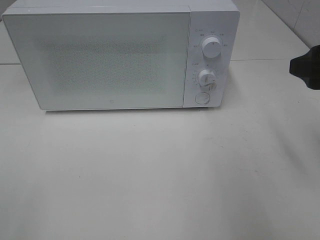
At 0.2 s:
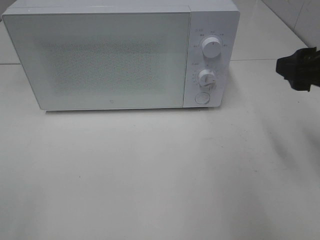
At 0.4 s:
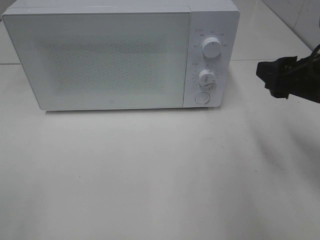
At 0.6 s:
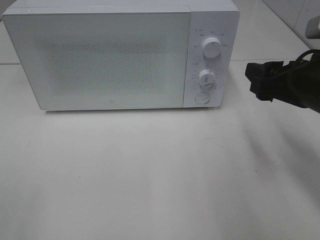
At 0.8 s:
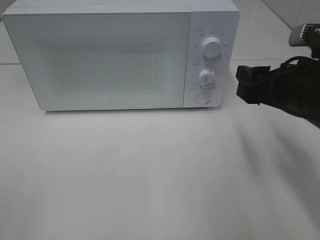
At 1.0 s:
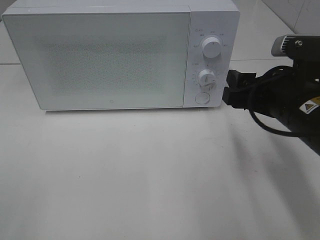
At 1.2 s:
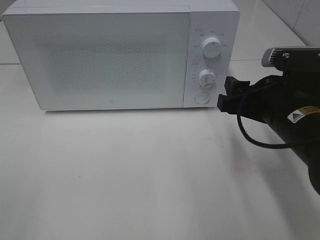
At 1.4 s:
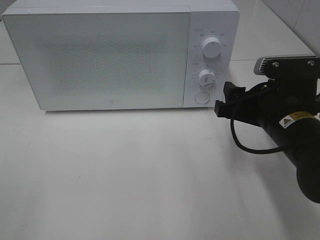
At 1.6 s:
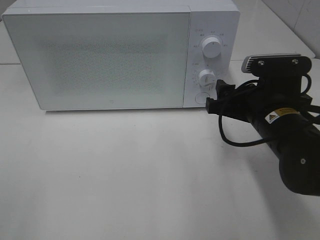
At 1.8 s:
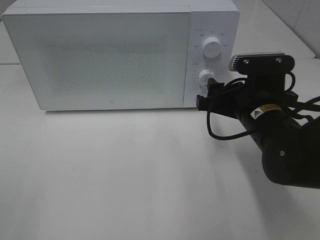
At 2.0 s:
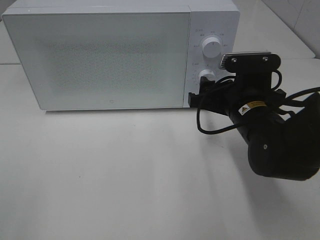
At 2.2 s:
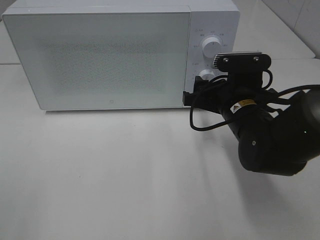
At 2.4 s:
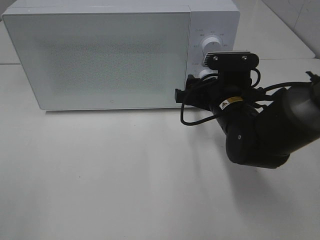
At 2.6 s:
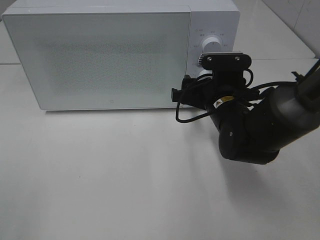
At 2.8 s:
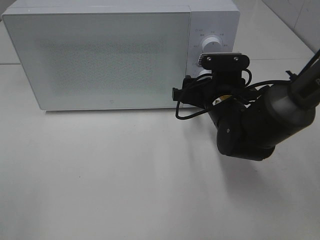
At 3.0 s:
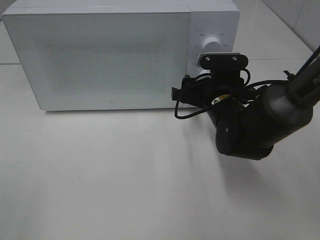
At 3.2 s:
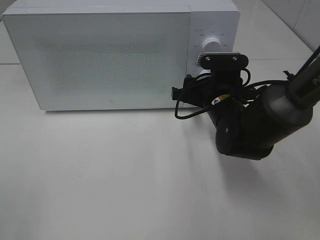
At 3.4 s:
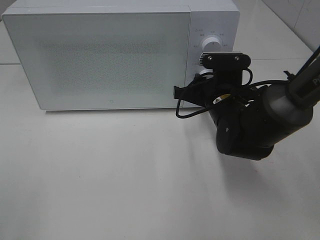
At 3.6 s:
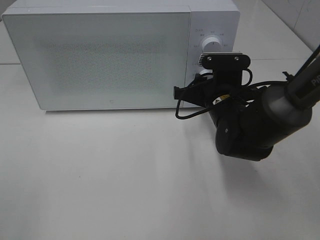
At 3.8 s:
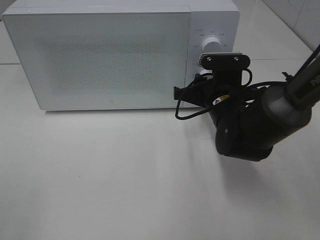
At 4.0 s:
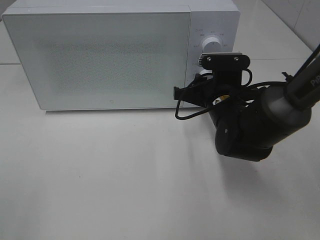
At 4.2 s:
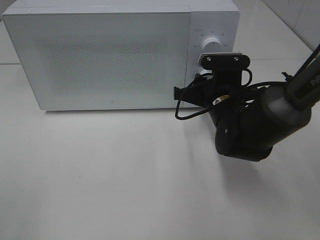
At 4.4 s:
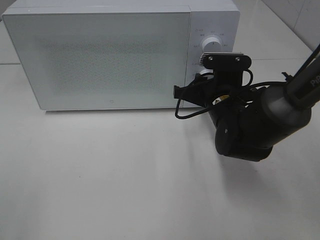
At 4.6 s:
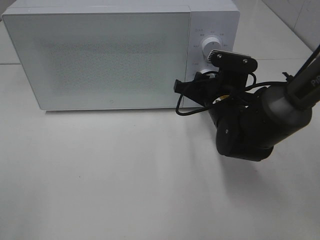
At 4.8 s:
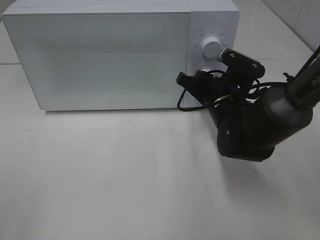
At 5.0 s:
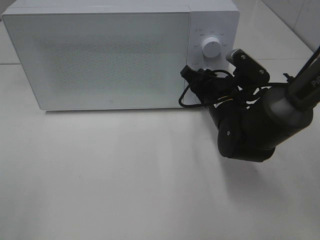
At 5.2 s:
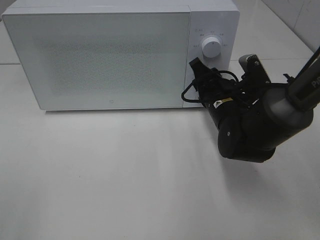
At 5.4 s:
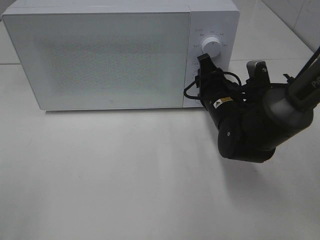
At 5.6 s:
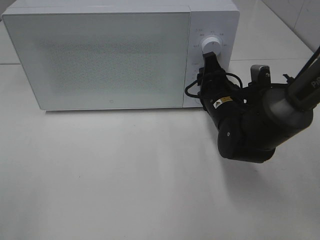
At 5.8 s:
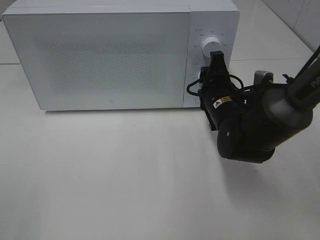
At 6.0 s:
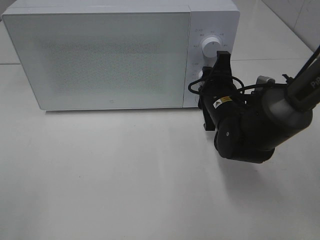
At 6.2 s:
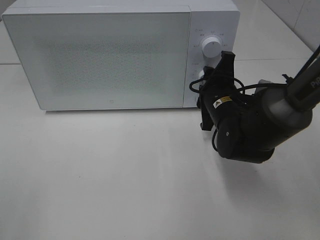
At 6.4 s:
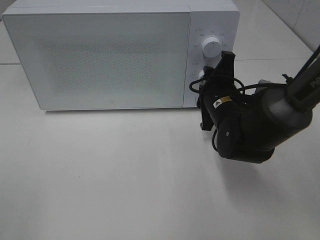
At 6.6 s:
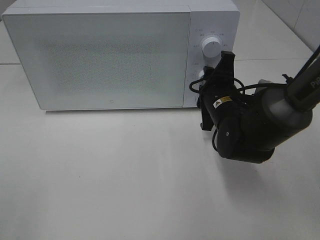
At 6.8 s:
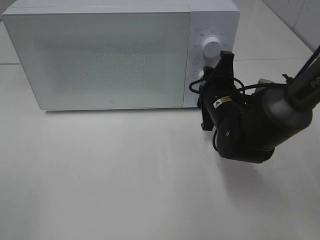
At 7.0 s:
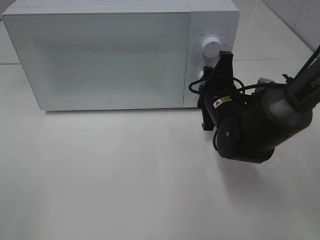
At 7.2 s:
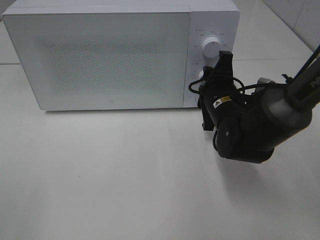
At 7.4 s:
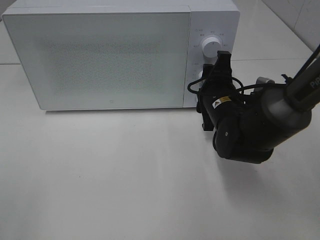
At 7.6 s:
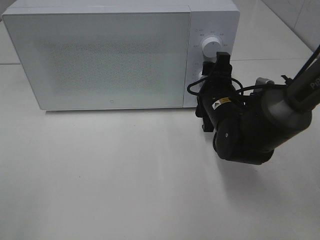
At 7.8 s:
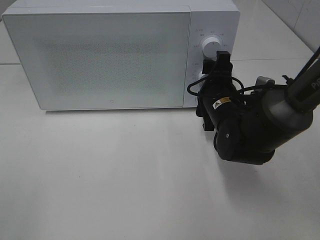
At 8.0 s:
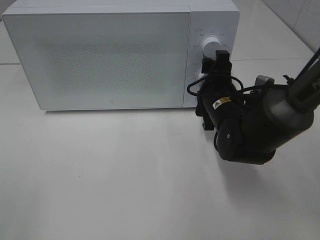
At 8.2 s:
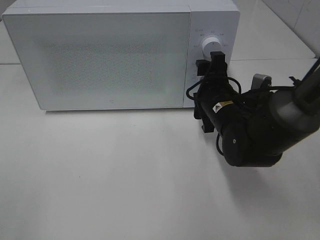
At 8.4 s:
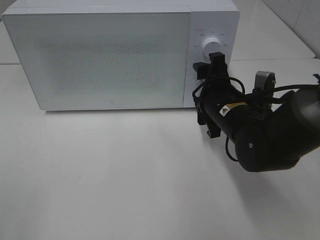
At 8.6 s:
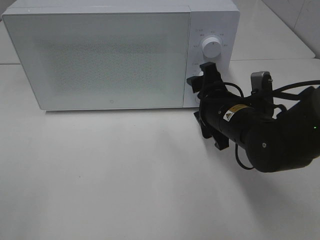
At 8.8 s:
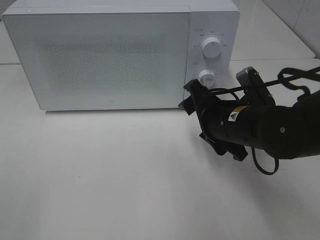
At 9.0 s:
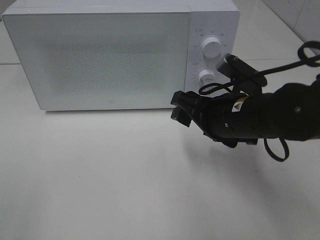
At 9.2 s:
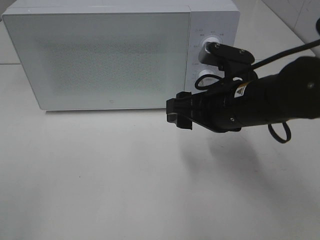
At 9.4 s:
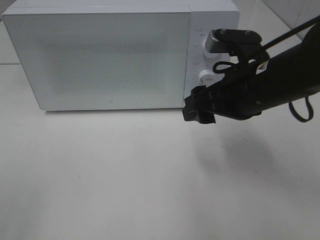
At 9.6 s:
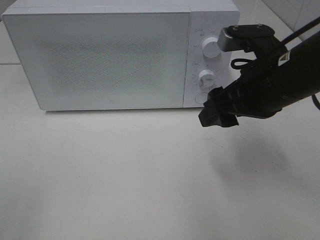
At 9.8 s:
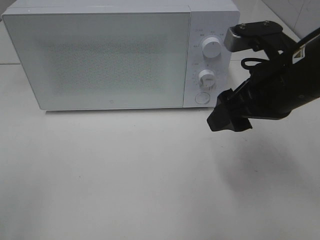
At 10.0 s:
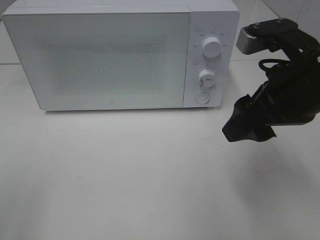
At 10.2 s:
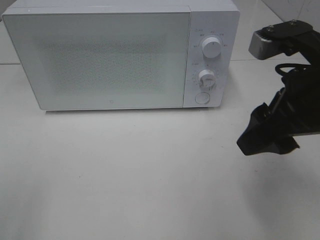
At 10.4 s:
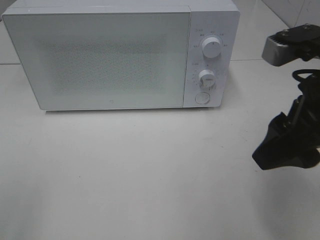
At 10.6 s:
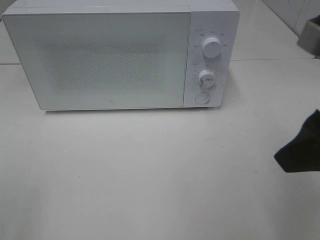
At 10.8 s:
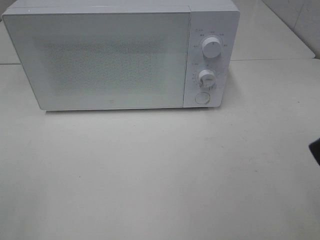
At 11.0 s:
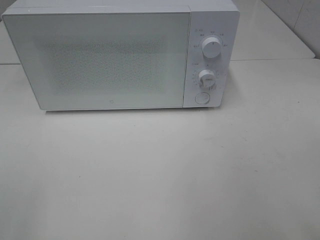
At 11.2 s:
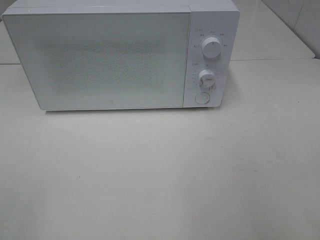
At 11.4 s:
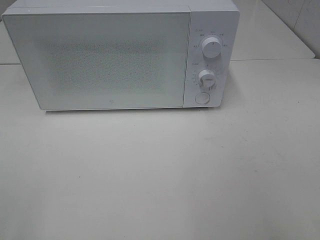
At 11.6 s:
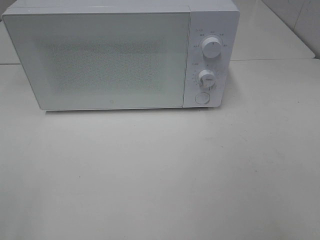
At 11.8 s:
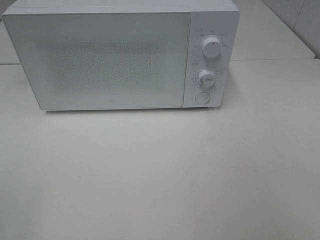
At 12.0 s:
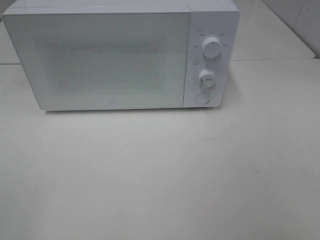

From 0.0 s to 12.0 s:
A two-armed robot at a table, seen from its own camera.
Task of the whole recording: Heat Sandwich.
Step, from 0.0 s to 8.2 s: Right hand: twist timer button.
From 0.0 s to 1.6 s: The right gripper is displaced downward and to the left by roughly 15 cm.
From 1.6 s to 3.0 s: The right gripper travels forward by about 10 cm.
From 3.0 s to 4.4 s: The right gripper closes.
From 6.0 s to 7.6 s: The grippers make only small movements.
From 7.6 s to 9.0 s: The right gripper travels backward and upward by some 10 cm.
From 9.0 s to 10.4 s: The right gripper is displaced upward, backward and to the right by about 15 cm.
From 10.4 s to 12.0 s: The right gripper shifts about 20 cm backward and to the right.

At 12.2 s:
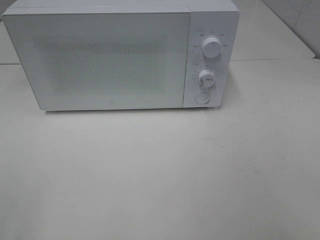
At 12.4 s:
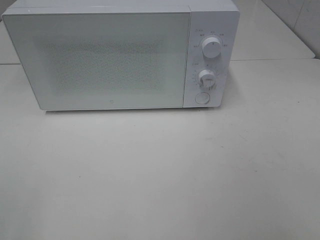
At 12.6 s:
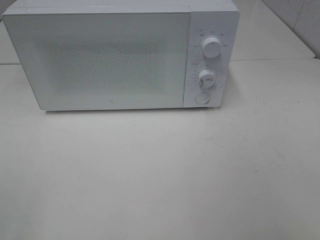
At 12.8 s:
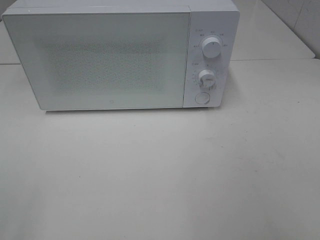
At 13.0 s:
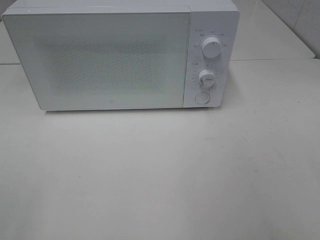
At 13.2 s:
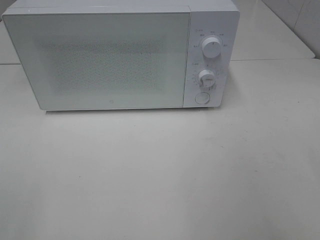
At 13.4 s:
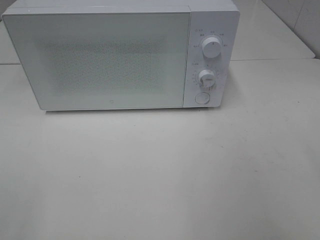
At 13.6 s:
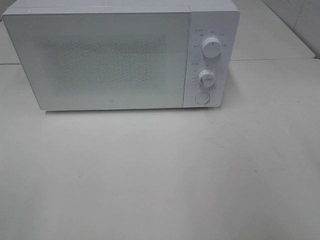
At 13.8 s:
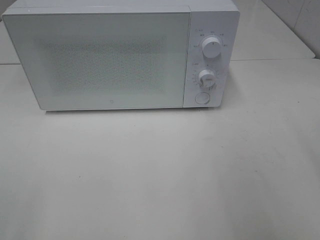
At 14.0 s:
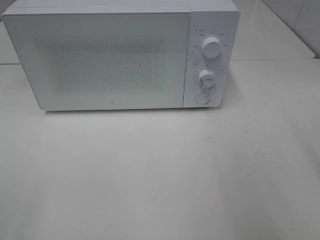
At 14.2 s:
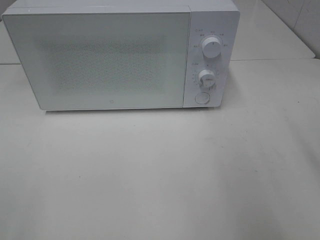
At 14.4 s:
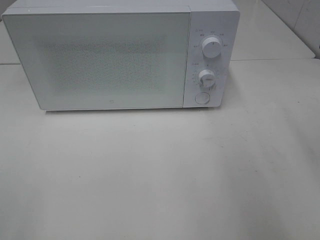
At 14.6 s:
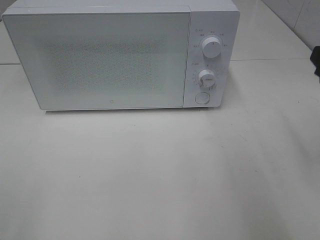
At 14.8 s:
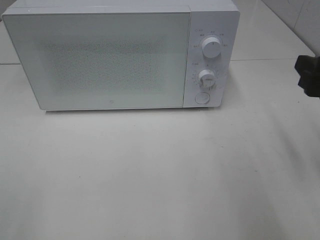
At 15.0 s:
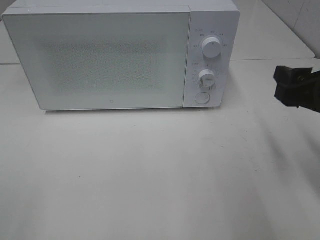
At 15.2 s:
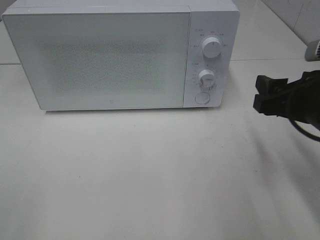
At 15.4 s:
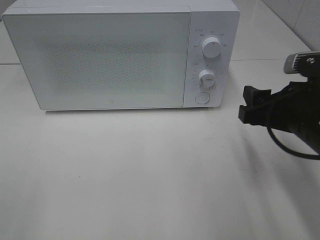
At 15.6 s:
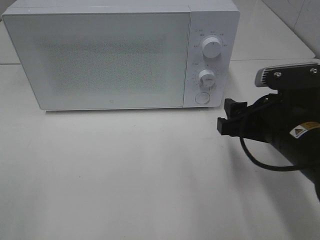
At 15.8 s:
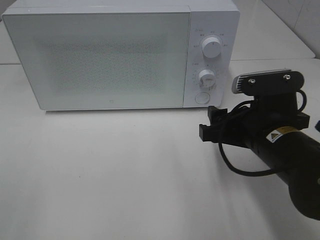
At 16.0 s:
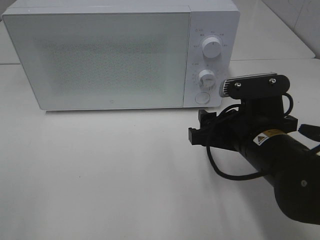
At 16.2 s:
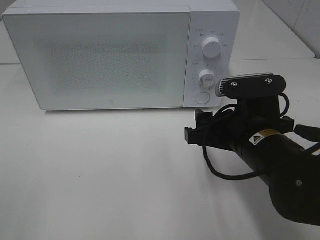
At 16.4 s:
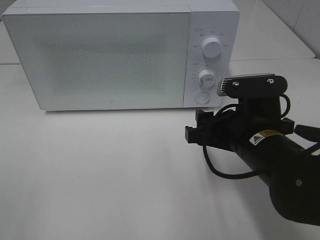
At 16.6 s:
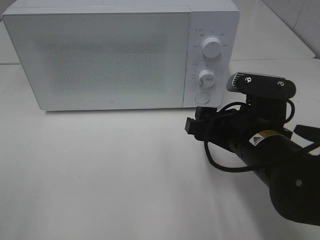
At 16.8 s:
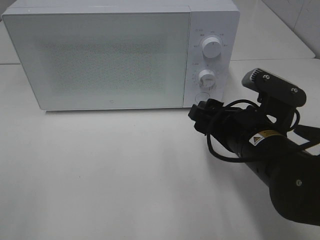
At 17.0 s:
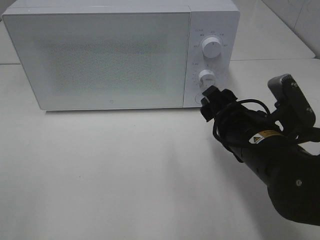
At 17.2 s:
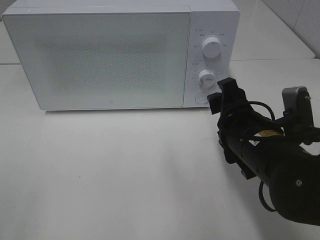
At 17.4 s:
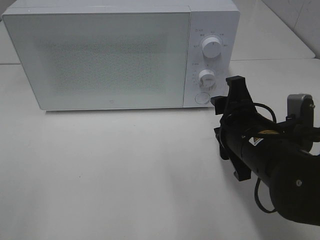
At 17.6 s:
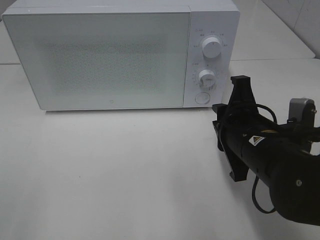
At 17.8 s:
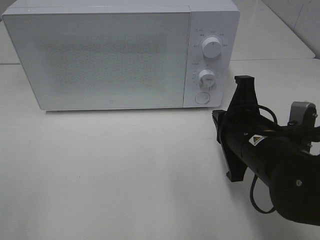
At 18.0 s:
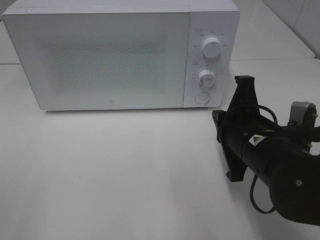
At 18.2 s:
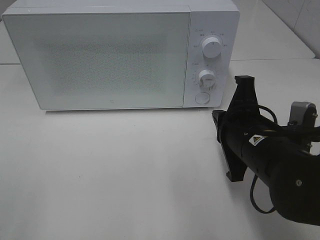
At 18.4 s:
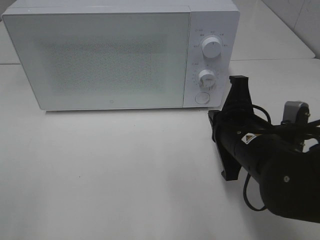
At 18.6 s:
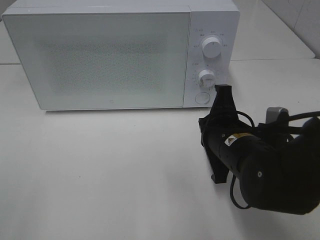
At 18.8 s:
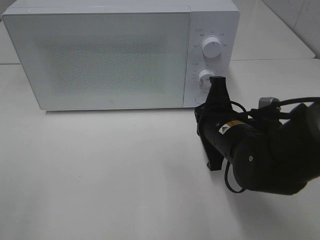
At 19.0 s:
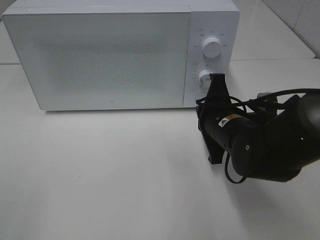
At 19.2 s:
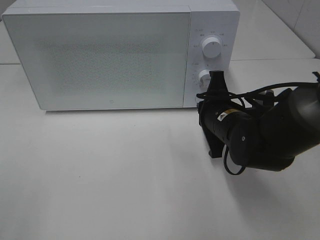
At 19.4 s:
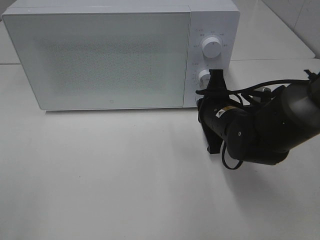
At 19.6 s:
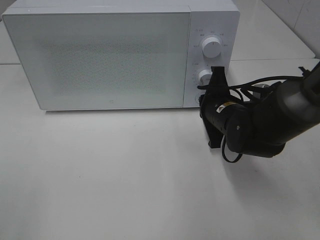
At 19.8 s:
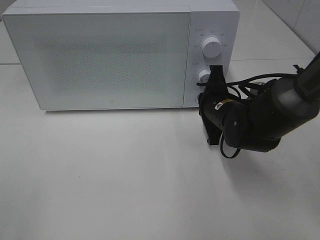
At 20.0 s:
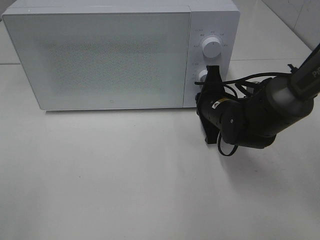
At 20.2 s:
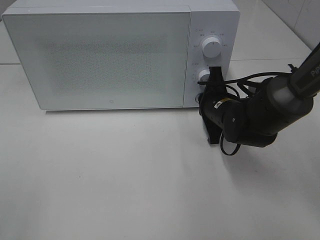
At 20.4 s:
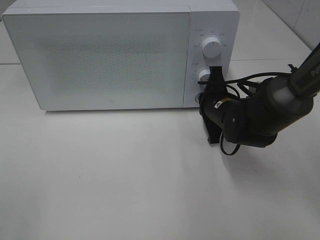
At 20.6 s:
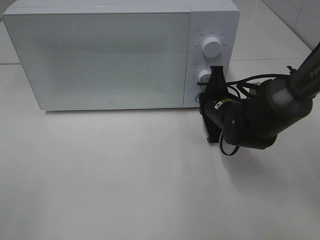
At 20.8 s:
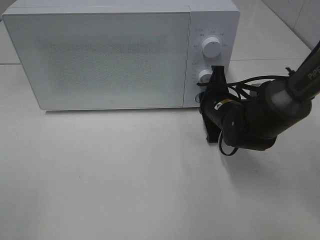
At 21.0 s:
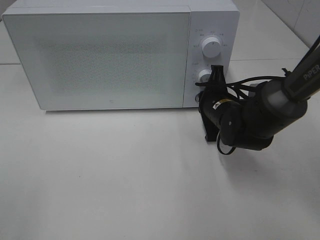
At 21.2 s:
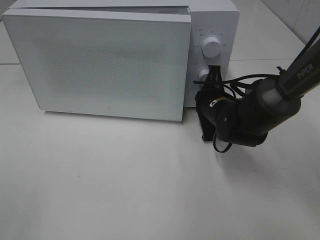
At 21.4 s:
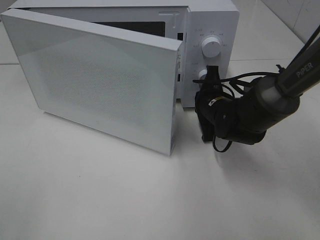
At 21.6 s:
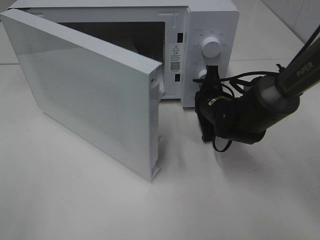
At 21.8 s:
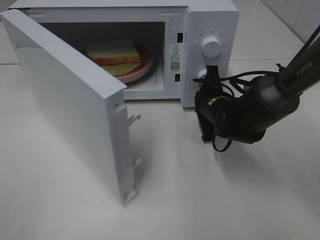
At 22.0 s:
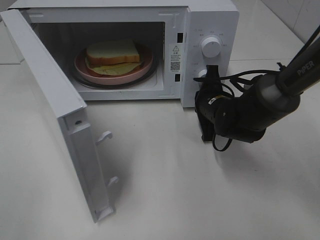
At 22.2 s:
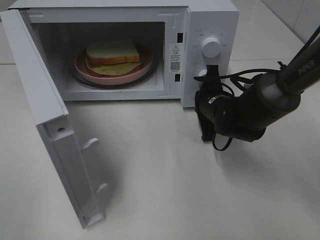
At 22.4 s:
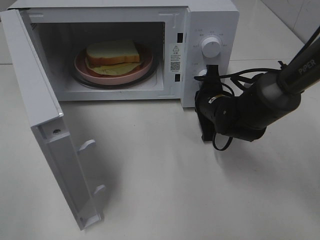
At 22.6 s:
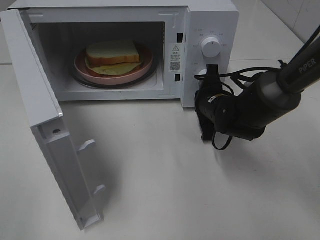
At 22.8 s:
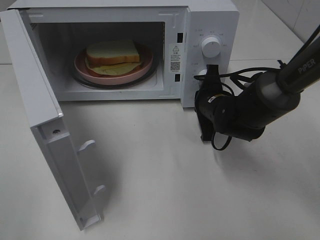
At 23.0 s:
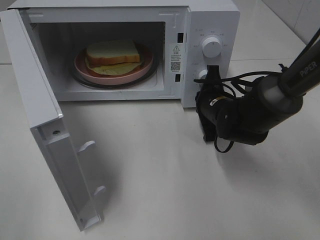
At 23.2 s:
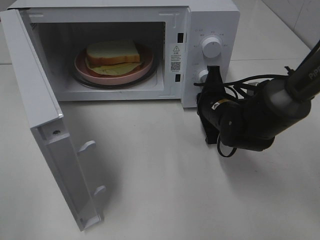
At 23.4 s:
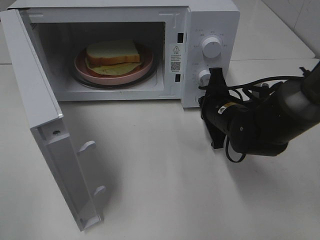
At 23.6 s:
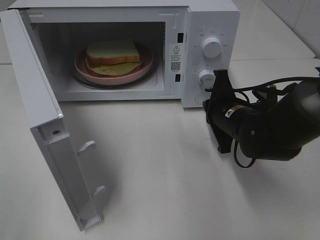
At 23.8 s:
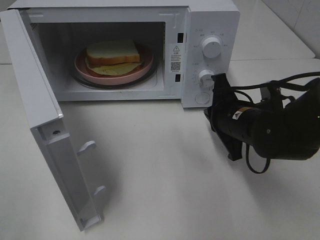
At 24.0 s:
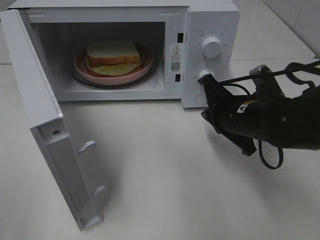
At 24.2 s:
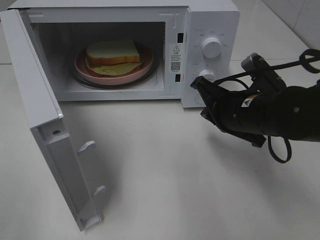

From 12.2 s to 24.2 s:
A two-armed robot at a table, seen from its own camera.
Task of the whole recording: Heat Sandwich.
Step, from 12.2 s to 23.2 s: Right hand: press the switch.
From 13.8 s to 15.2 s: The right gripper heads downward, forward and to the left, covering some 15 cm.
From 15.2 s to 16.6 s: The right gripper travels to the left by some 10 cm.
From 16.6 s to 18.2 s: The right gripper closes.
From 18.2 s to 19.8 s: The right gripper travels forward and downward by approximately 15 cm.
From 19.8 s to 21.2 s: The grippers move only a little.
From 22.6 s to 24.2 s: The right gripper travels backward and upward by about 10 cm.
